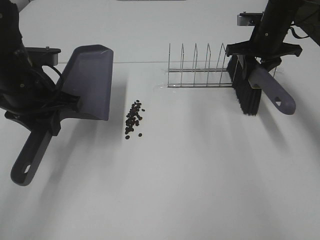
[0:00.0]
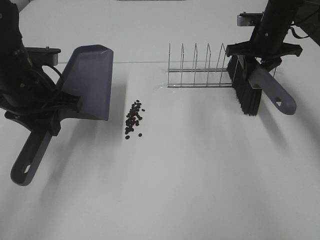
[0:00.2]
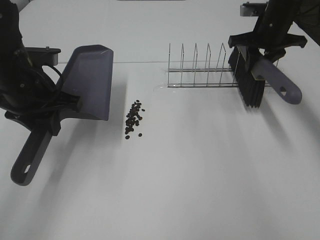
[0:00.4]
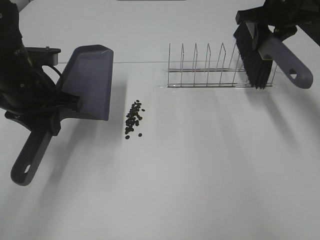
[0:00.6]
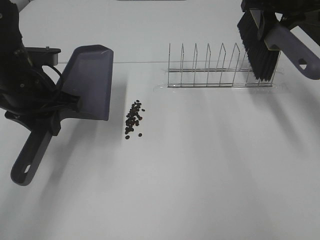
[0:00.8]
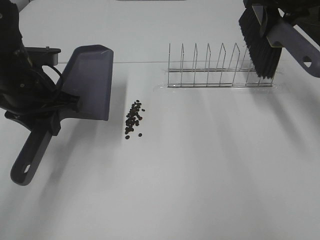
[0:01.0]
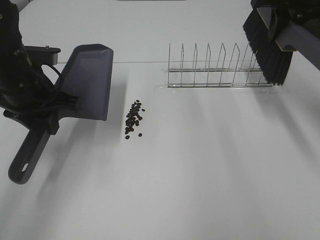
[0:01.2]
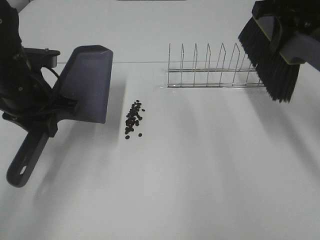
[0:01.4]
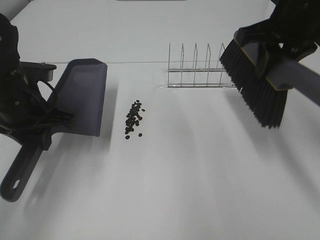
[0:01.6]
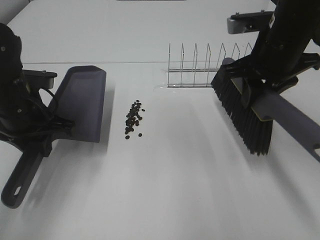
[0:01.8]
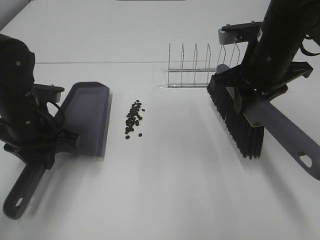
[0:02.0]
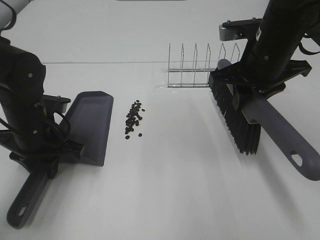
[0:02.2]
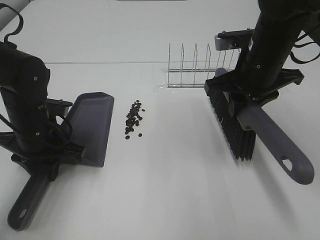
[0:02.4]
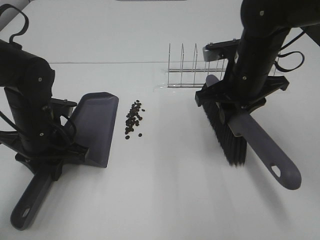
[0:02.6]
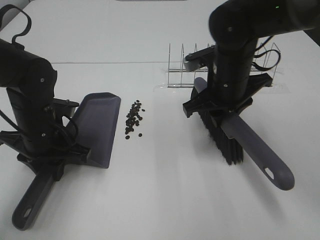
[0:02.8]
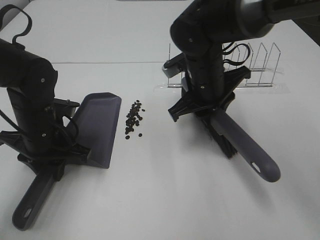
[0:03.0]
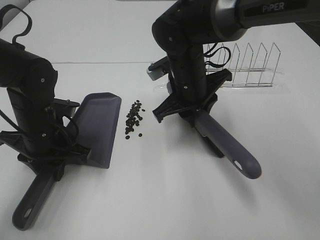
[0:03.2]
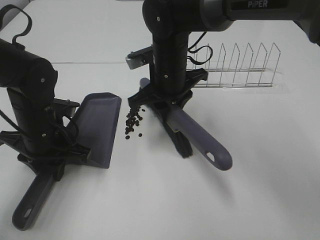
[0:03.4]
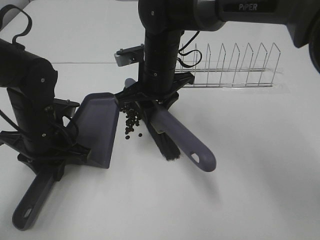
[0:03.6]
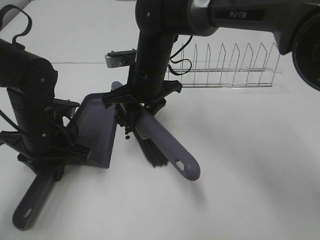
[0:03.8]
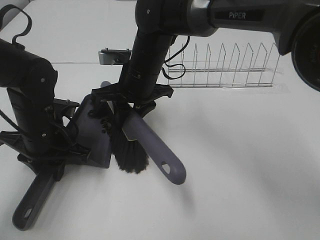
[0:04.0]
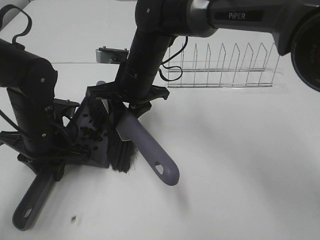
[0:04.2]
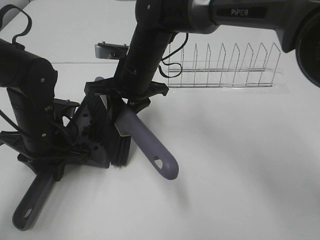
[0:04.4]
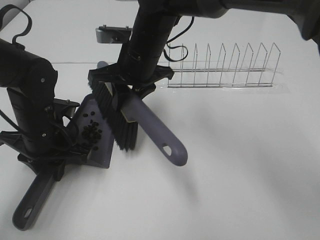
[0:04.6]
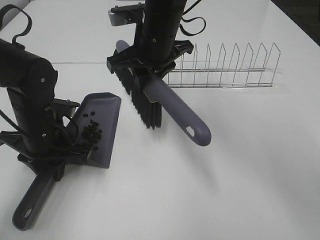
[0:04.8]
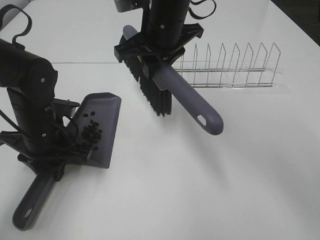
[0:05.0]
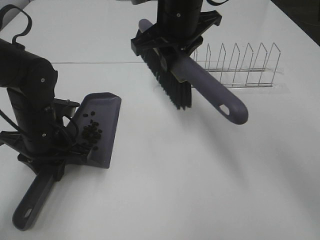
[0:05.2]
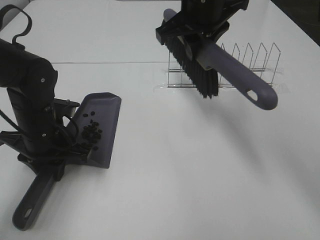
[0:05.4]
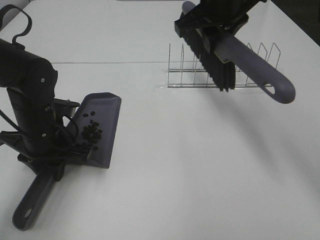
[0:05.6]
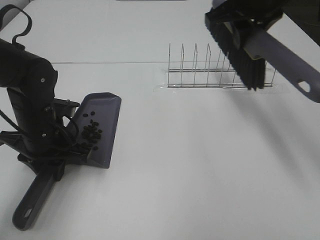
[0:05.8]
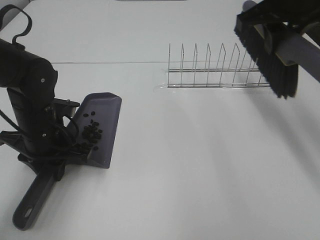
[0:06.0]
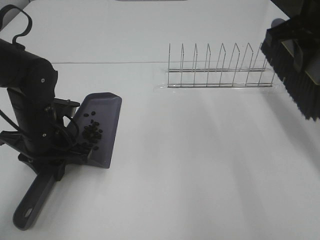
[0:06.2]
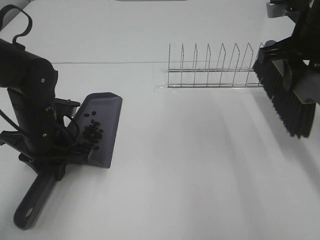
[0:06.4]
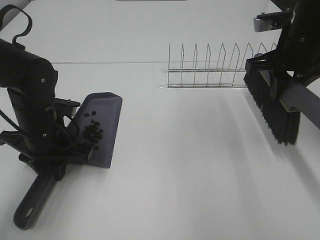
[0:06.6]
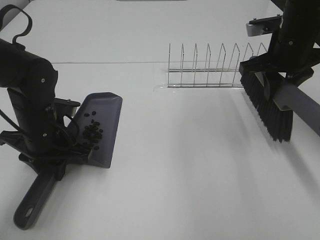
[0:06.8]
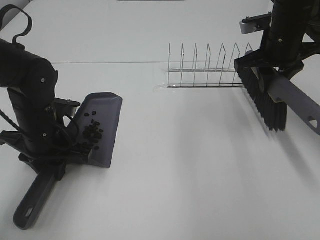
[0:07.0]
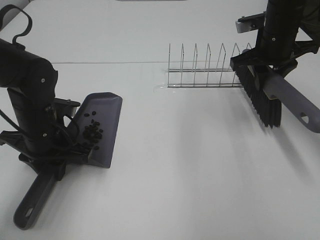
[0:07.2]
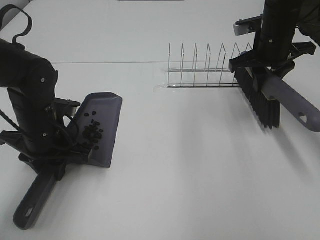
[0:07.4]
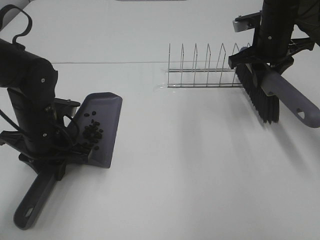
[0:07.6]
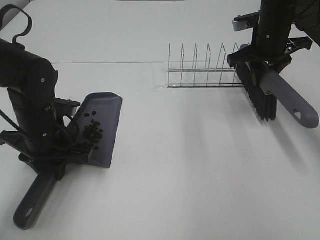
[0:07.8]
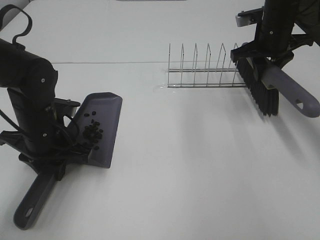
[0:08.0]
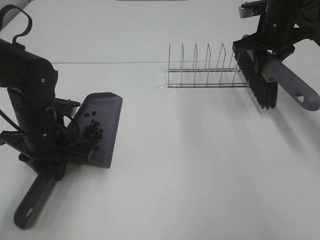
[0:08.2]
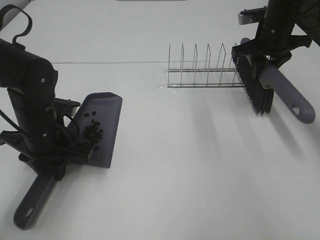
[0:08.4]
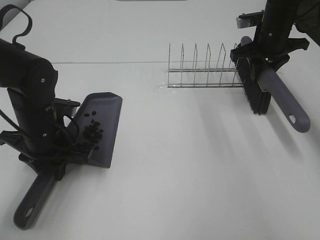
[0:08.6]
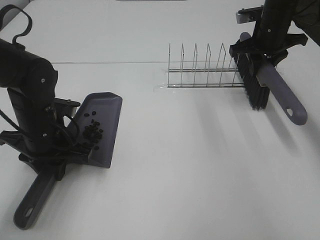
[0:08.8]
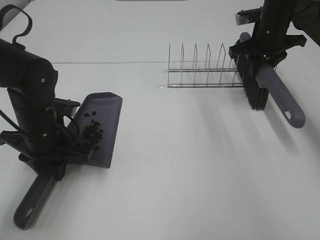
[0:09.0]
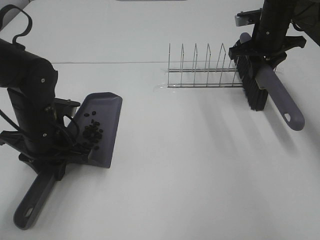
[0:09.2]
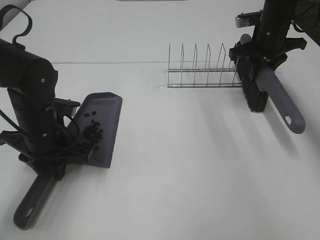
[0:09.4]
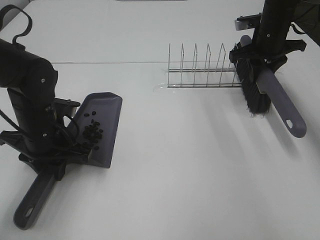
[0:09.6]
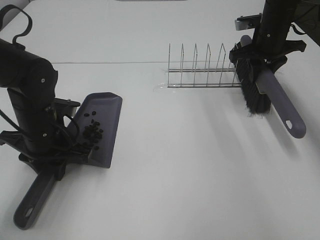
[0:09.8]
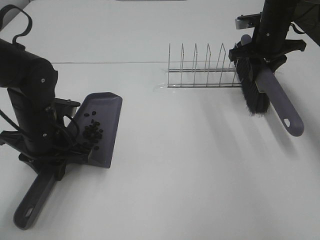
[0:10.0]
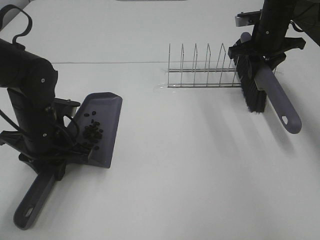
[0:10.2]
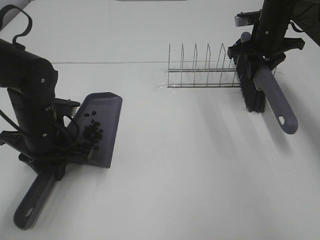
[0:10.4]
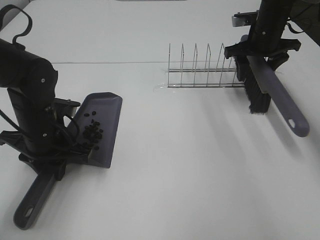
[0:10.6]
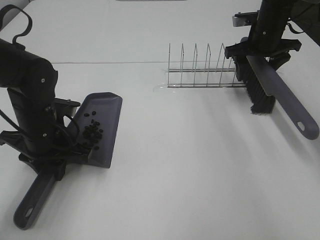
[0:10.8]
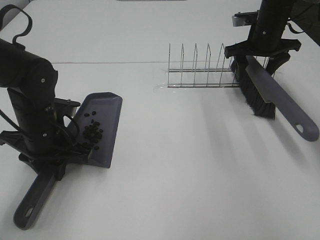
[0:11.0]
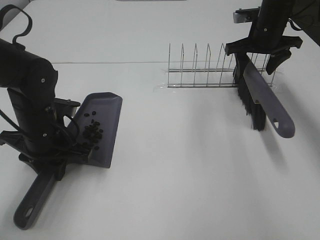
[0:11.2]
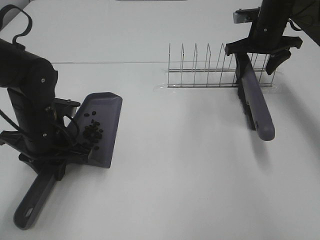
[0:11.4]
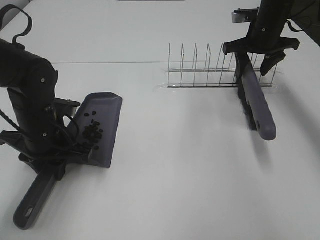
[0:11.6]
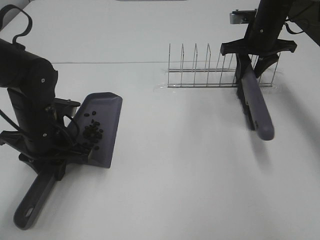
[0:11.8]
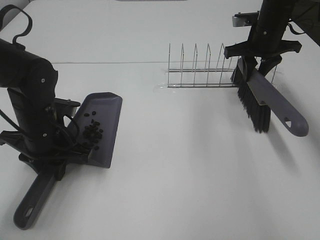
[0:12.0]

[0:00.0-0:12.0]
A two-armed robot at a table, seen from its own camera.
Task of the whole recording: Sweep Coffee Bean.
Step, 0:00.0 to 0:02.6: Left hand: move the dustpan to the left side of the coffee beans.
Step, 0:00.4 to 0:04.6: Right hand:sweep the coffee beans into the dustpan.
0:00.0 to 0:01.6: The right gripper is displaced backward and upward by roughly 20 cm.
0:01.6 to 0:03.0: The right gripper heads downward and to the left, covering roughly 15 cm. Meanwhile the left gripper goes roughly 5 cm downward.
0:03.0 to 0:04.4: The right gripper travels to the left by some 10 cm.
0:04.4 to 0:06.0: The right gripper heads to the right and upward, covering roughly 25 cm.
0:06.0 to 0:07.6: The right gripper heads downward and forward, covering about 15 cm.
0:07.6 to 0:09.0: The right gripper is displaced forward by some 5 cm.
0:09.0 to 0:10.4: Both grippers stay put.
0:10.4 to 0:12.0: The right gripper opens, then closes again.

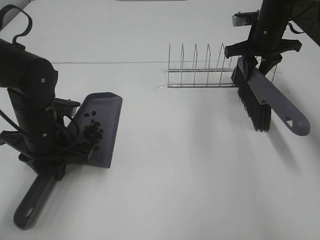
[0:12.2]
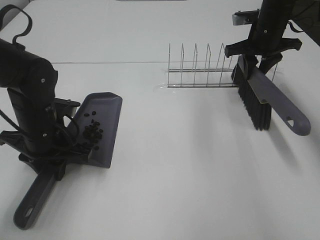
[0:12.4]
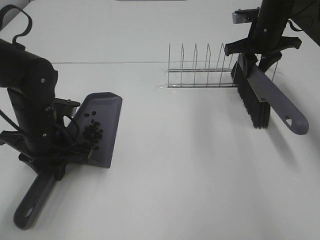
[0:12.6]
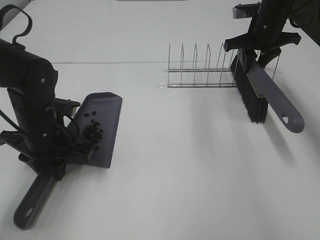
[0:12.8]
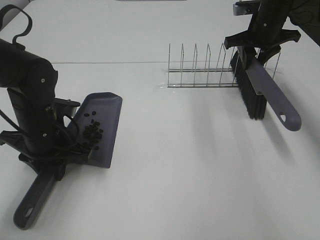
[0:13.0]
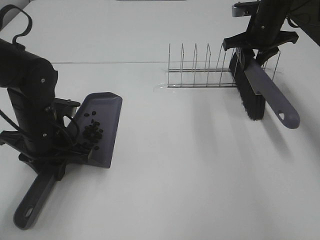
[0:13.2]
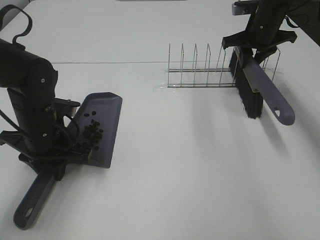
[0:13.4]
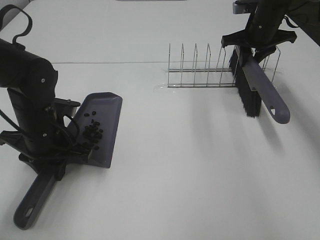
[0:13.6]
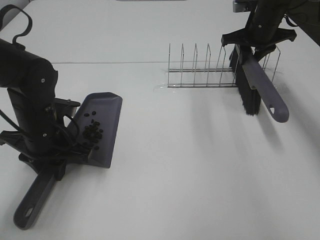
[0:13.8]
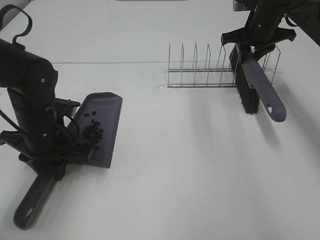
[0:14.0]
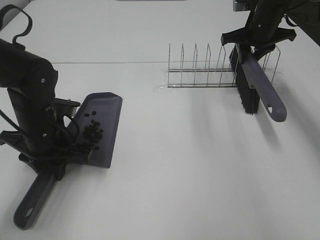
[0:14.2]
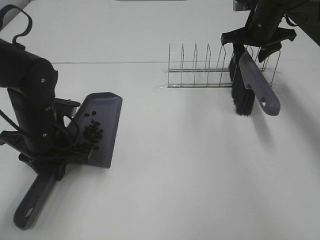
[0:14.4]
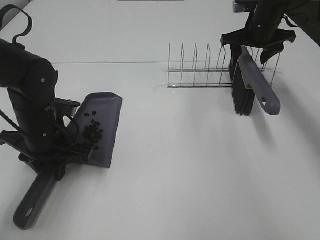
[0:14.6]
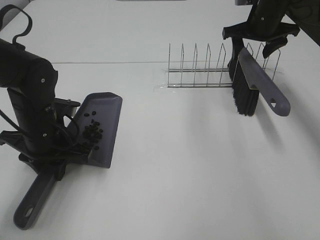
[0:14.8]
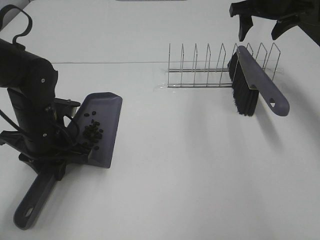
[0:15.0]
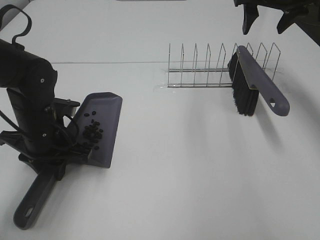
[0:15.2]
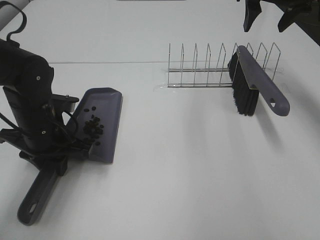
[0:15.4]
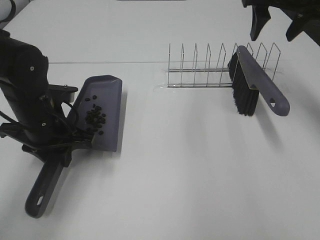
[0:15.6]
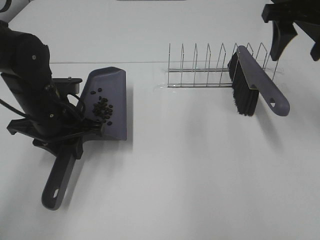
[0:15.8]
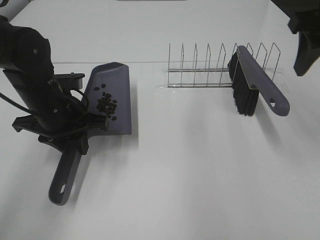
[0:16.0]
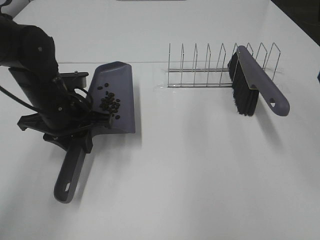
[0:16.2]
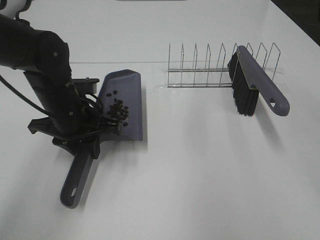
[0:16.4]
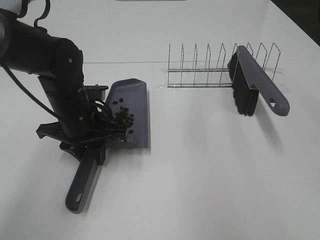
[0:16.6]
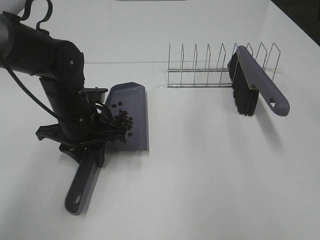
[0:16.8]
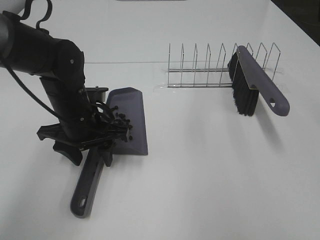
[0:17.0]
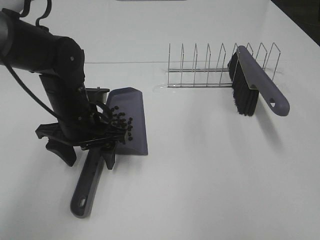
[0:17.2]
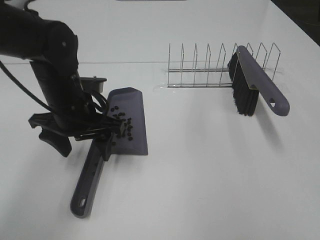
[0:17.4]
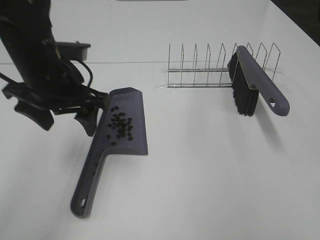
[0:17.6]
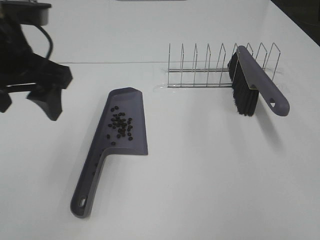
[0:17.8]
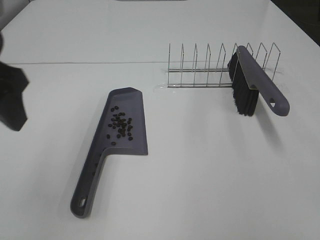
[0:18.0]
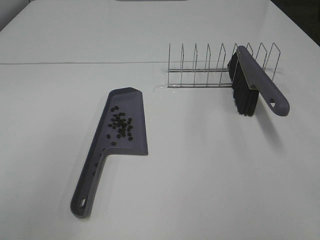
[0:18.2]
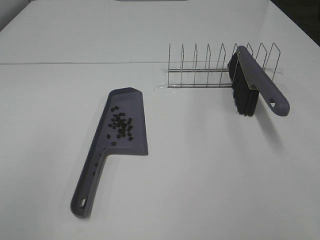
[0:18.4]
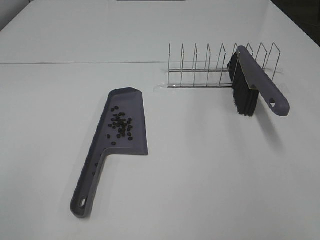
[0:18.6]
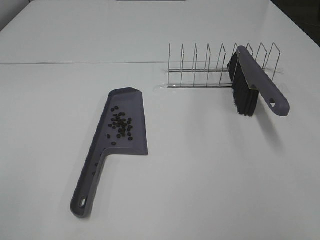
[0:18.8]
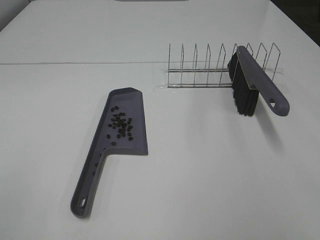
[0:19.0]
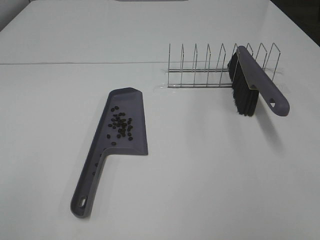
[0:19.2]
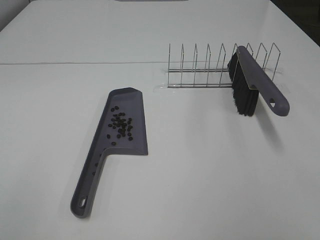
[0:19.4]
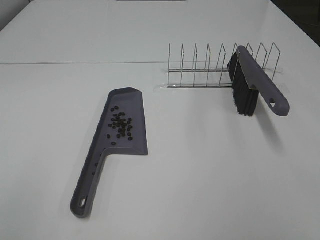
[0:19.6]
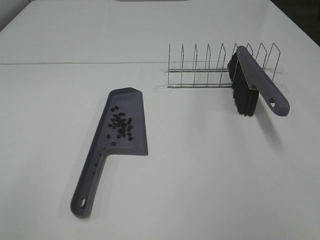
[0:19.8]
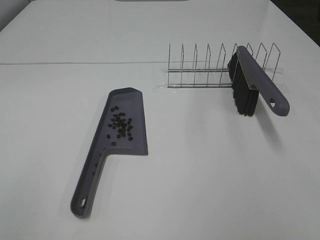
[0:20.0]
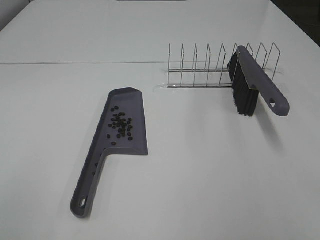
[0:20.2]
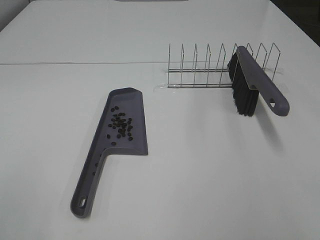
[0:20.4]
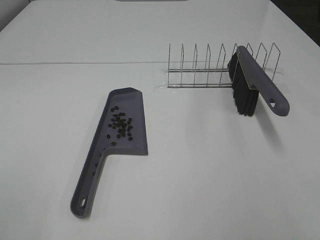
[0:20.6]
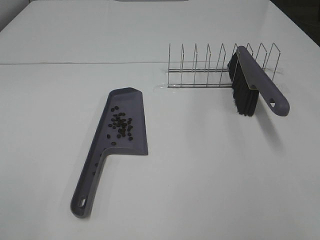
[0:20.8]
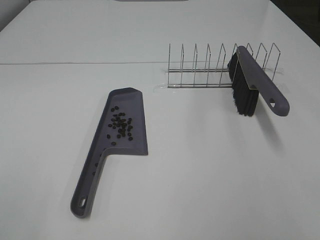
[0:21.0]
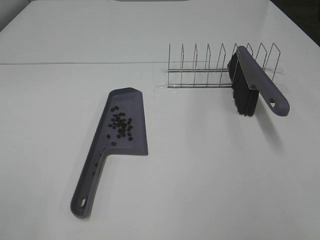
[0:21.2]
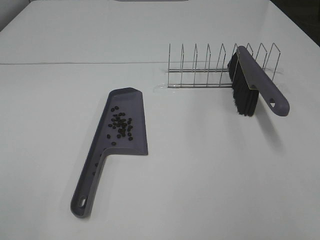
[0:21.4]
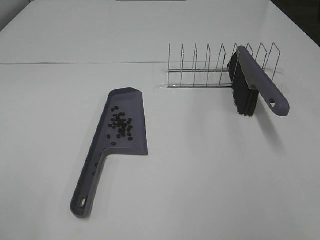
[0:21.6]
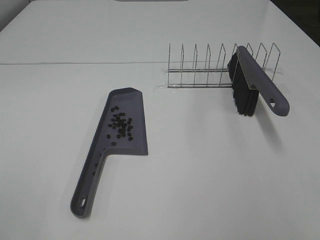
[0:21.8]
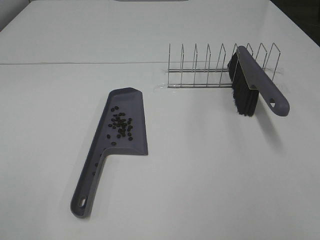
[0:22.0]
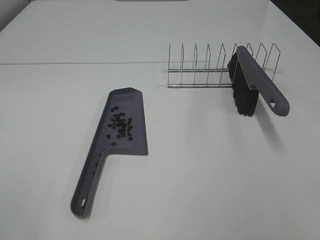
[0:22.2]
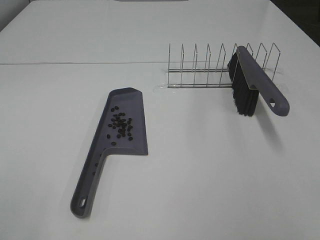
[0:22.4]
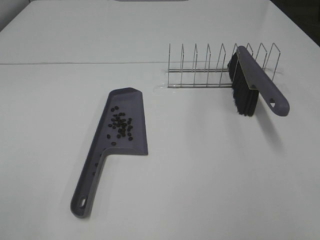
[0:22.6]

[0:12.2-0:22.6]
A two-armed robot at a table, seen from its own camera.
Task of the whole recording: Sweep Coffee Bean.
Step, 0:12.2 to 0:14.8: Right hand:place the broom on the rack.
Step, 0:15.0 to 0:17.2: Left hand:place the dustpan on the table.
0:12.2 to 0:13.6: The grippers move only a little.
0:13.6 to 0:15.2: The right gripper heads upward, covering some 10 cm, and opens up.
0:15.2 to 0:16.6: The right gripper moves backward, approximately 30 cm; the left gripper shifts about 5 cm to the right.
0:16.6 to 0:18.2: The left gripper moves backward, upward and to the left, some 30 cm, and opens up; the right gripper shifts some 15 cm backward and downward.
0:18.2 to 0:19.6: The left gripper travels backward by roughly 15 cm.
0:21.2 to 0:22.6: Neither gripper changes place.
